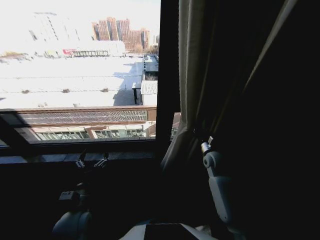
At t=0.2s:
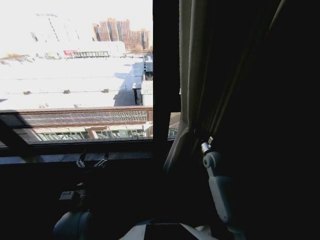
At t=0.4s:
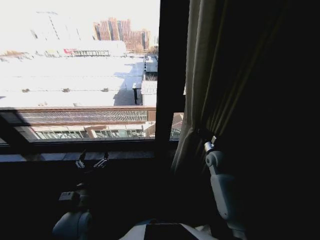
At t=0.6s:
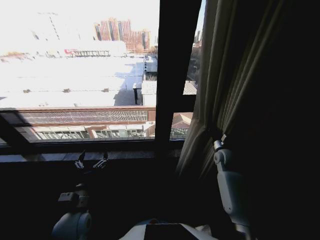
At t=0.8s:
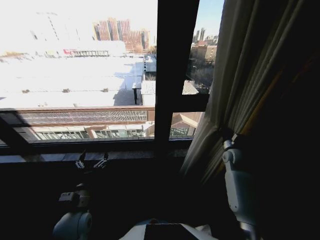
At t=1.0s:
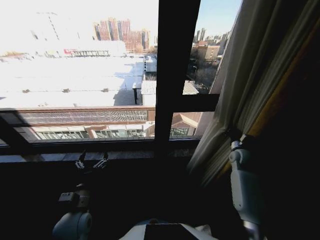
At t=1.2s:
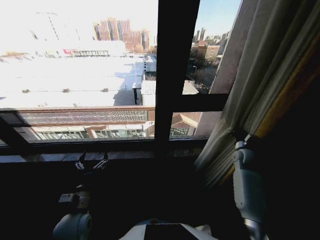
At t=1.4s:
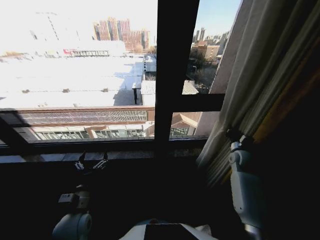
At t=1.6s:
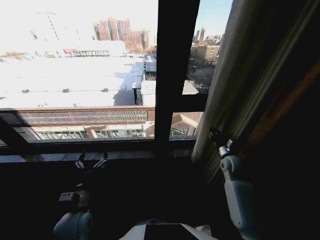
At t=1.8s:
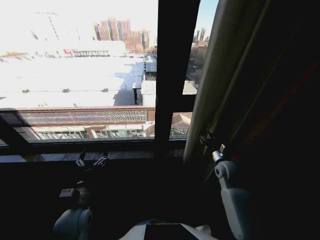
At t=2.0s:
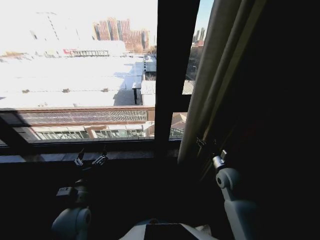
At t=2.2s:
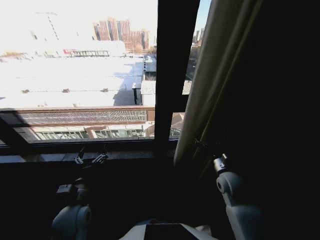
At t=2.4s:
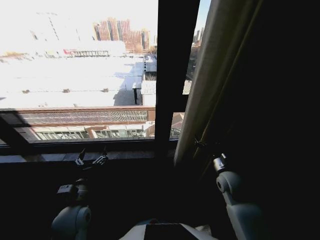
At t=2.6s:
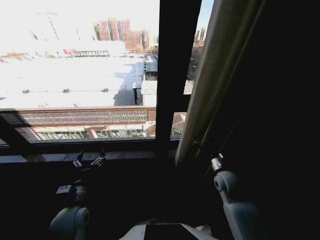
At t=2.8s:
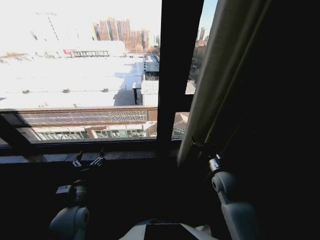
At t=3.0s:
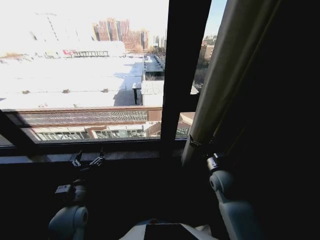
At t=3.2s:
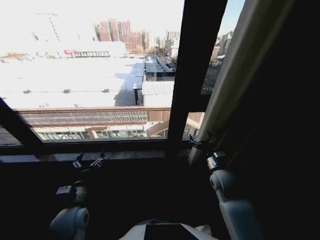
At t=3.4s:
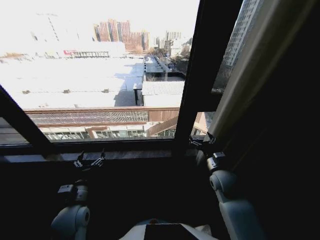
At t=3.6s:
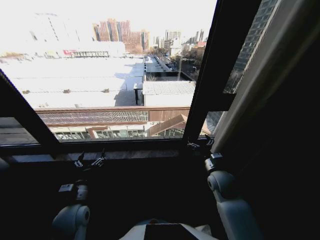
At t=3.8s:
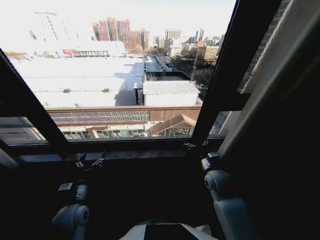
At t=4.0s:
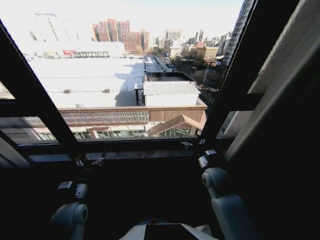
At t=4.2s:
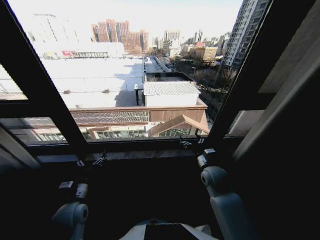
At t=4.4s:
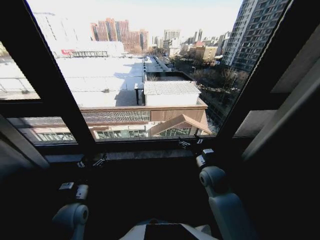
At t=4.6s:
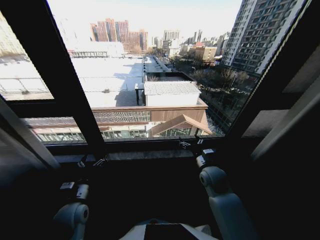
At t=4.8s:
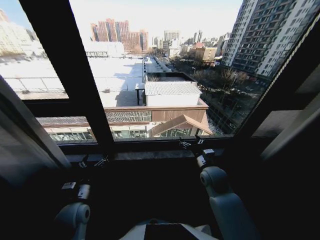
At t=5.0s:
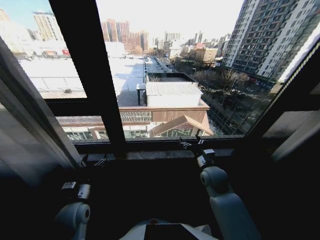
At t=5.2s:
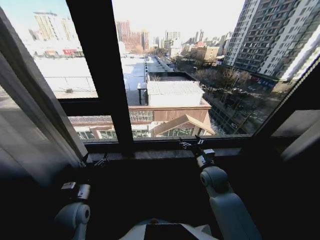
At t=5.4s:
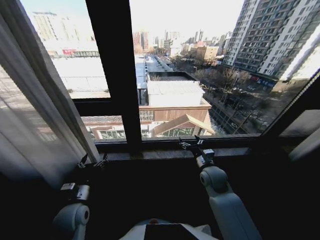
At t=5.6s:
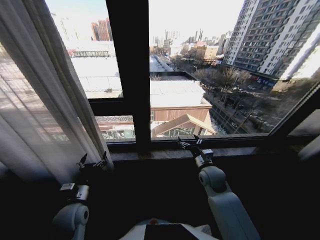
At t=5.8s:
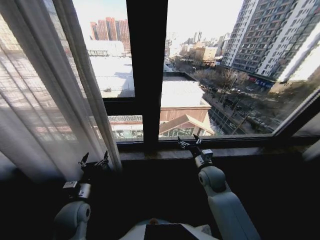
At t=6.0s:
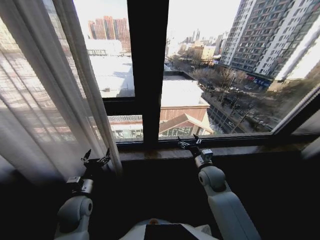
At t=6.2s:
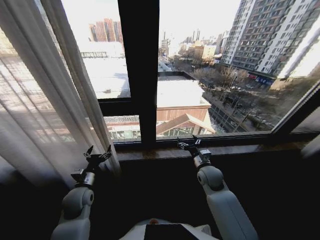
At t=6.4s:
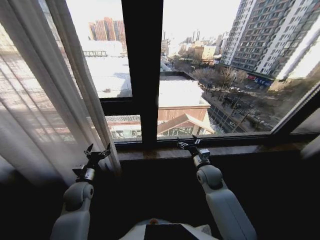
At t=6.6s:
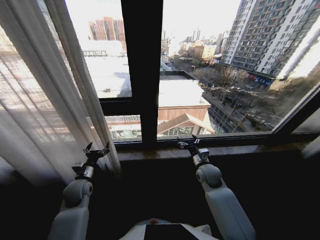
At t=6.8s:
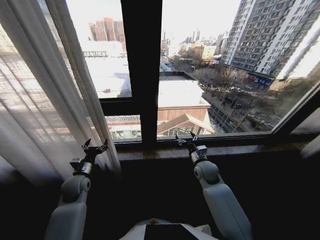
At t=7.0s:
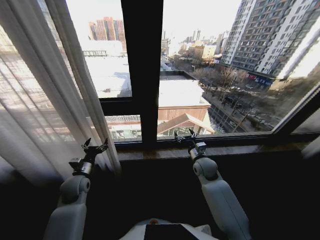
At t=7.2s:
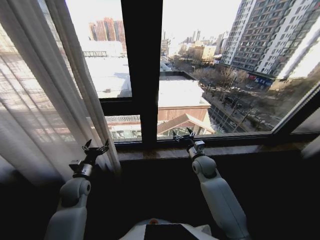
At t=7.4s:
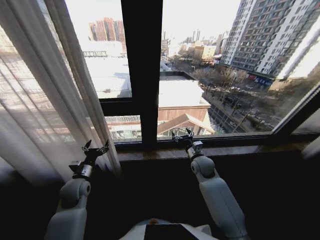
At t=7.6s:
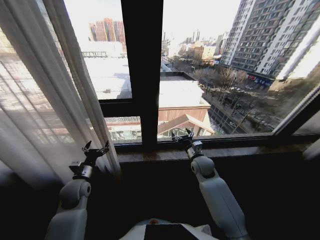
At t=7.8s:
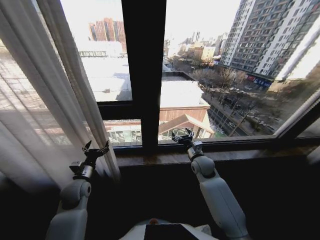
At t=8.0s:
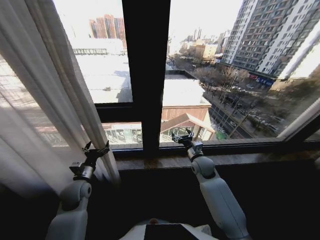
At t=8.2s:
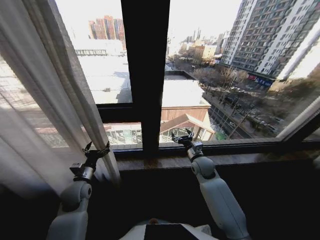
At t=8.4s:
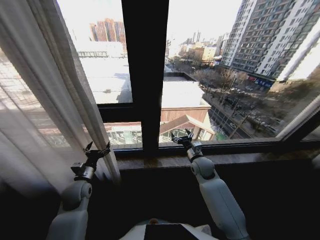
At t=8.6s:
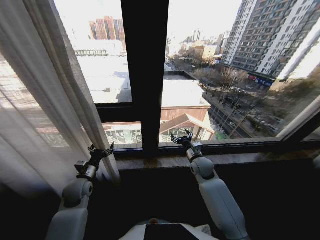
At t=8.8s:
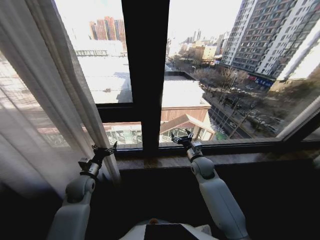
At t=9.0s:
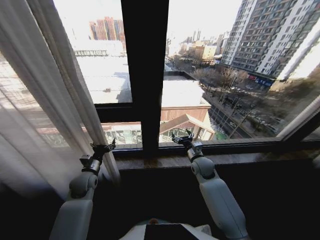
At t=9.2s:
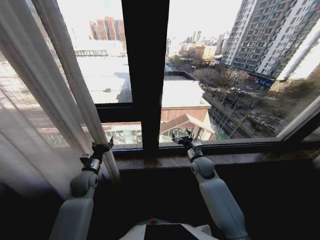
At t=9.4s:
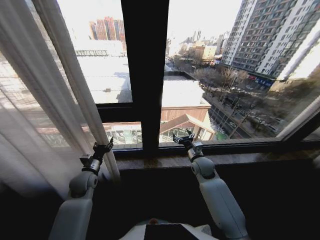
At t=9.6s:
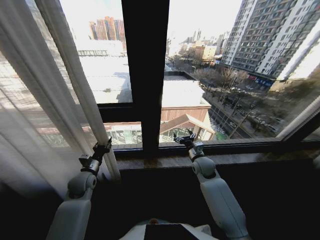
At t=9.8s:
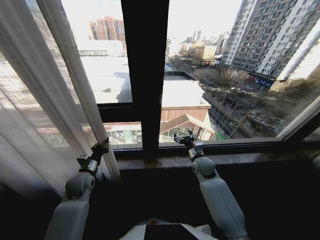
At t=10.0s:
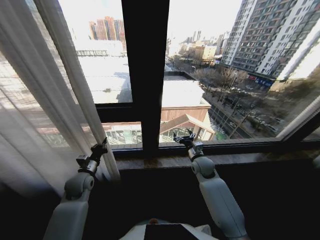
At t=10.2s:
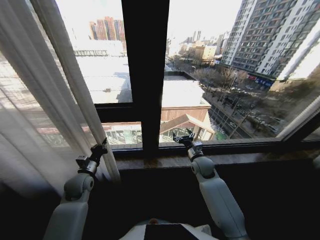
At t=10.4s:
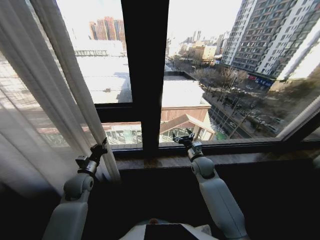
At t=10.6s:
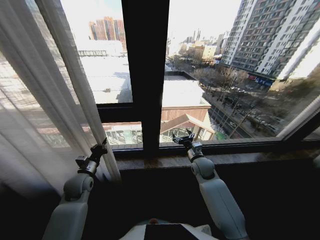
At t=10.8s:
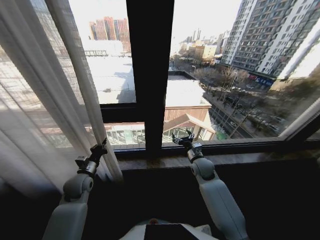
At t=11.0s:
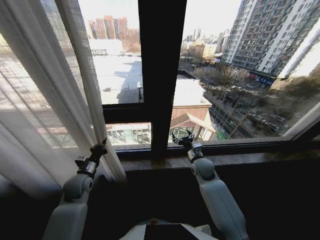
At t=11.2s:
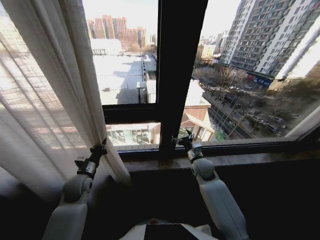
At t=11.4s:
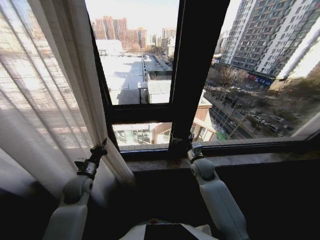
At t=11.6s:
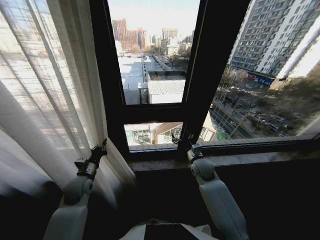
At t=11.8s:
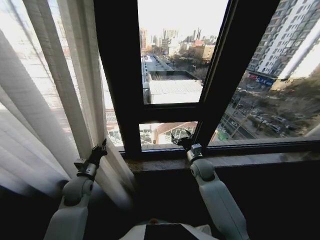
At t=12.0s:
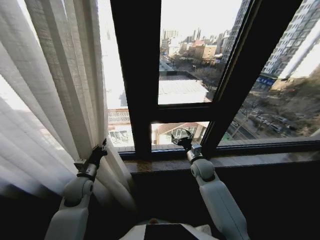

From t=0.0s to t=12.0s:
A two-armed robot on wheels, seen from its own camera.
Task of the whole recording: Open the curtains by pulling them apart, changing their state from closed to fully open.
From t=0.0s to t=1.6s: The right gripper moves to the right, about 10 cm.
From t=1.6s to t=3.0s: The right gripper is displaced to the left and backward by about 10 cm, and opens.
From t=6.0s to t=7.6s: Both grippers travel together forward, about 5 cm.
From t=9.0s to t=10.4s: The left gripper closes its fingers.

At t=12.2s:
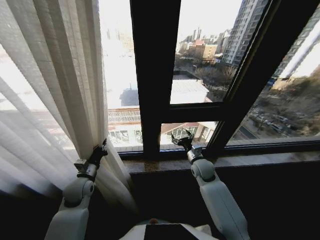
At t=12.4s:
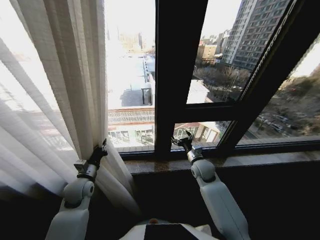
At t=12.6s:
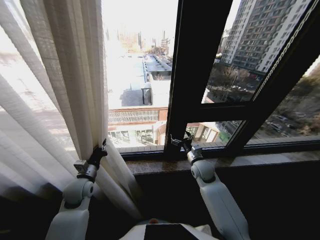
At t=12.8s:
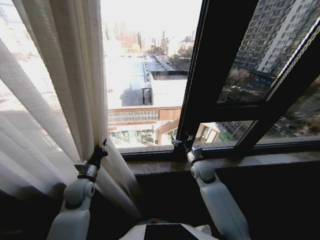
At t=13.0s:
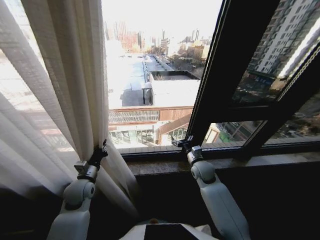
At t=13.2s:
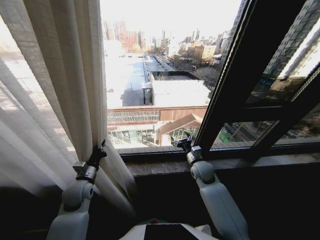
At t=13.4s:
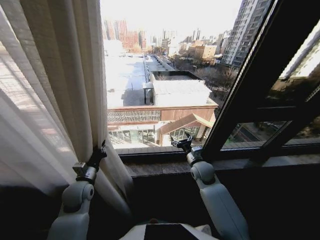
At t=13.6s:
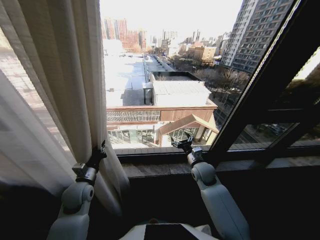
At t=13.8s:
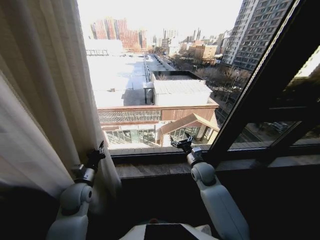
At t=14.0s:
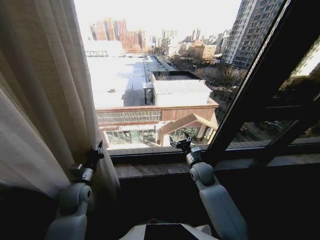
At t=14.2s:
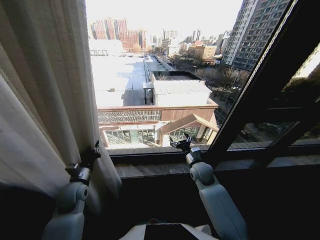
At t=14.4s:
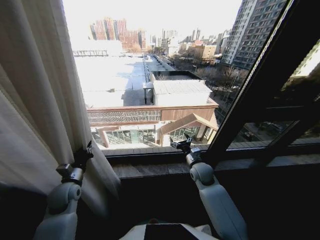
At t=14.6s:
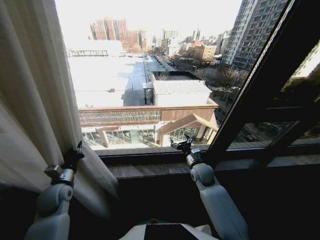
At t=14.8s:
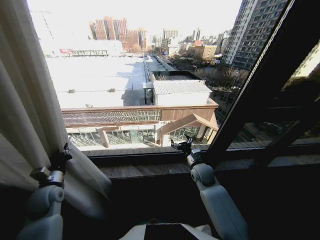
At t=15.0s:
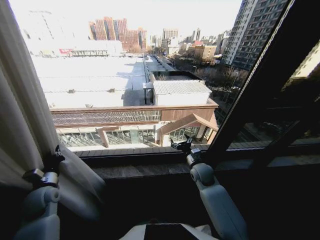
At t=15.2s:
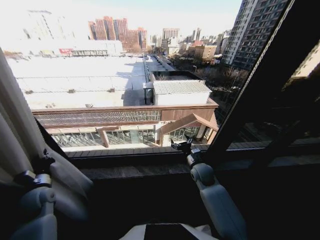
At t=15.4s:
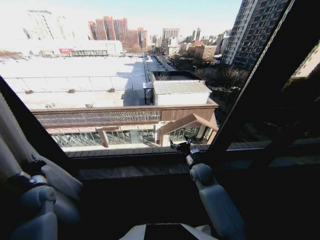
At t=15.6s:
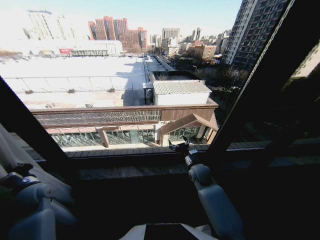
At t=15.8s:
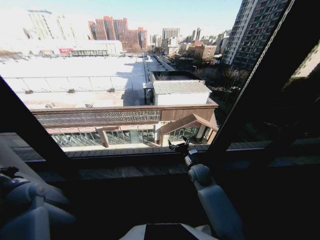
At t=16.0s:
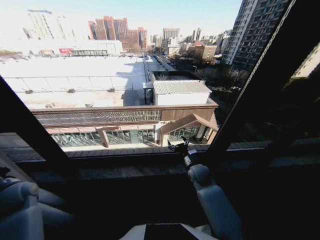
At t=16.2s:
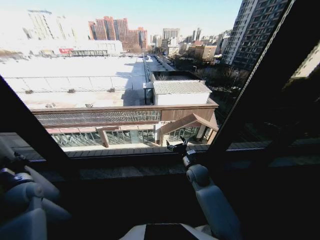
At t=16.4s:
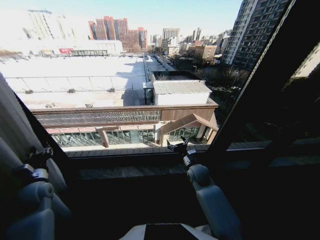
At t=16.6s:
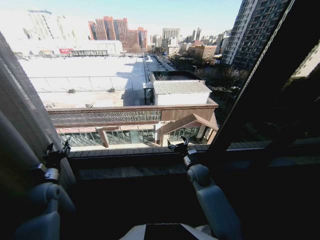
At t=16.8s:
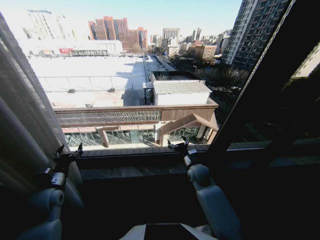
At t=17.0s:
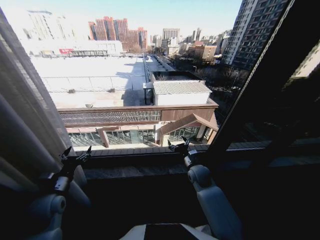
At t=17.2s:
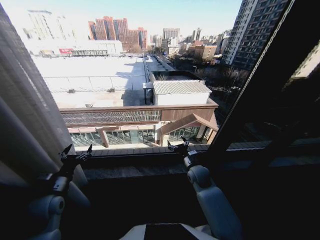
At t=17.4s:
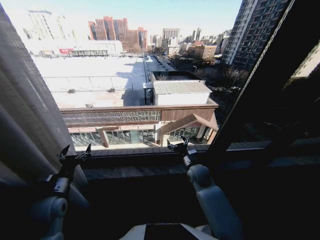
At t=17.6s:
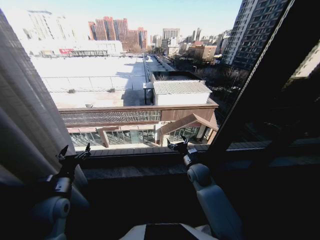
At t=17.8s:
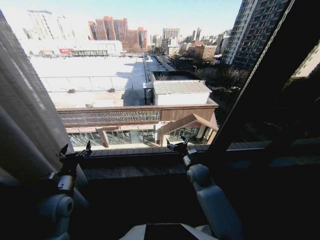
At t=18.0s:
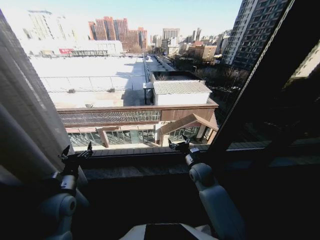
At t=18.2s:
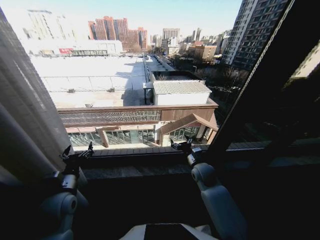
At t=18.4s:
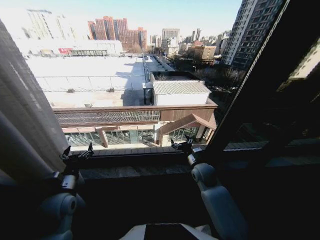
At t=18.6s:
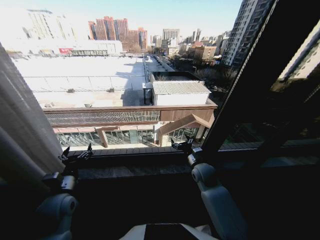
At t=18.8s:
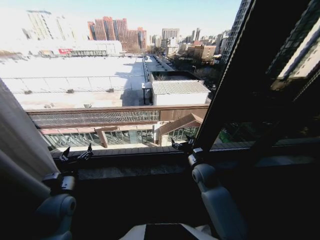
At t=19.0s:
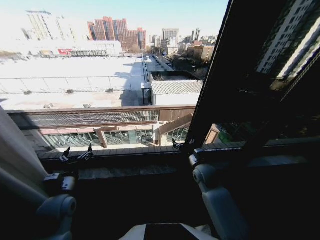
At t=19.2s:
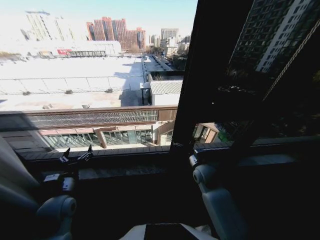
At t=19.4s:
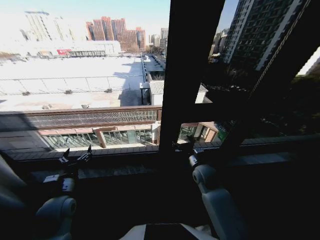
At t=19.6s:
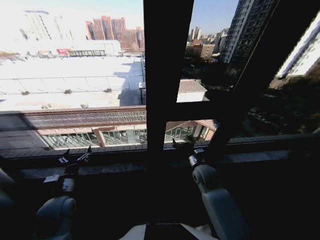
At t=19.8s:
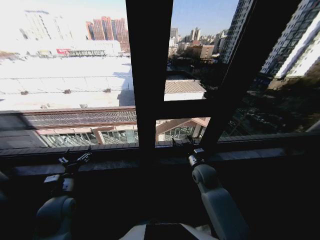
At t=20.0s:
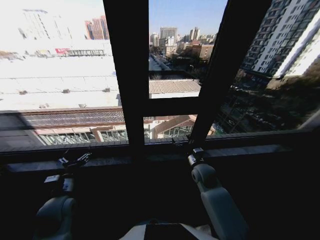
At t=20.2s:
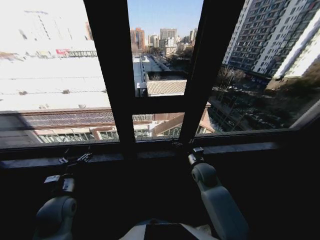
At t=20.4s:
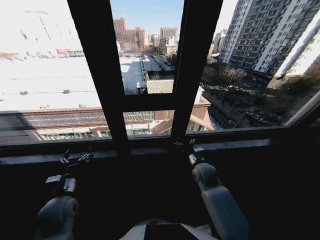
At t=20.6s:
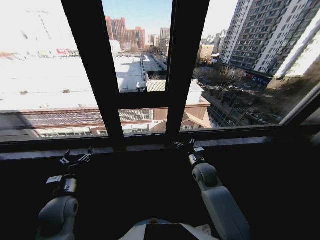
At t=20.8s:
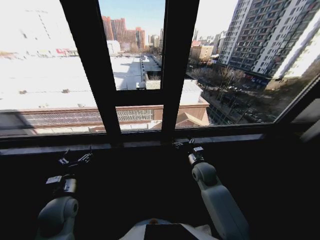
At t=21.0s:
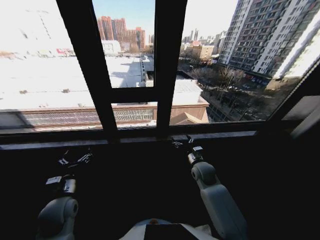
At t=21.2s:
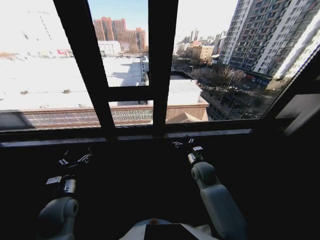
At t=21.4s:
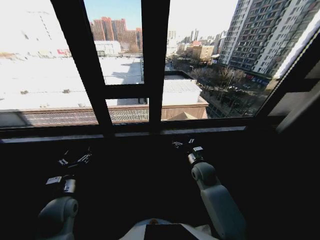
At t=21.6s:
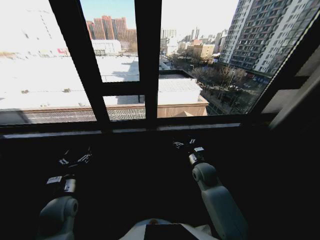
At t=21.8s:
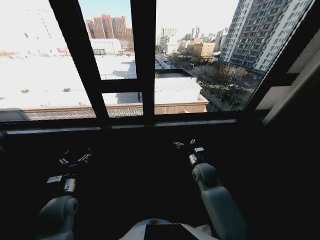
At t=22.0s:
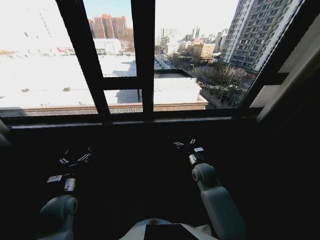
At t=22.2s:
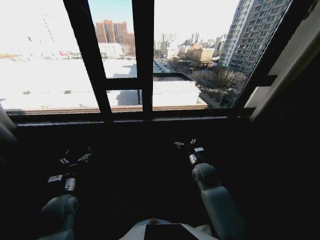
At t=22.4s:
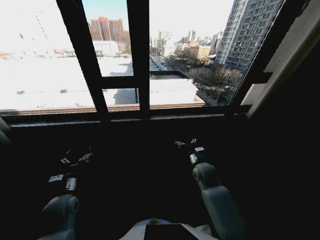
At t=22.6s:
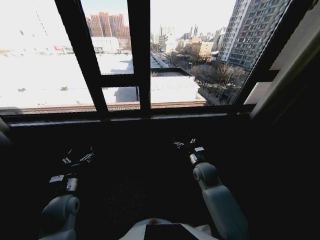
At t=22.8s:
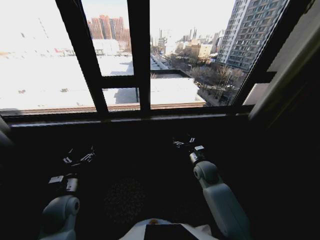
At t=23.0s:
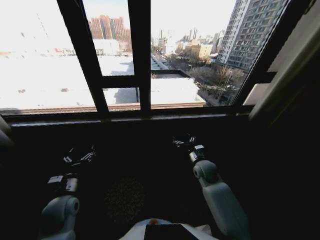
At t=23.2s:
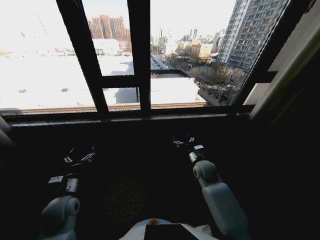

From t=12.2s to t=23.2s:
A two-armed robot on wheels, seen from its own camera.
Task of the whole recording: Open the curtains by pulling them apart, changing their state from closed to fully open.
From t=13.8s to t=15.4s: The left gripper heads to the left, covering about 15 cm.
From t=15.4s to t=17.0s: The left gripper moves to the right, some 5 cm, and opens its fingers.
From t=17.0s to t=18.4s: The left gripper changes place by about 5 cm.
